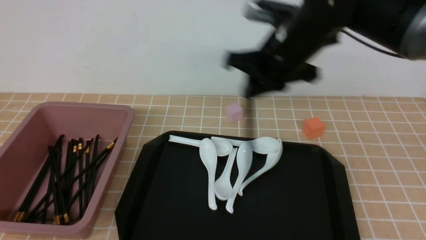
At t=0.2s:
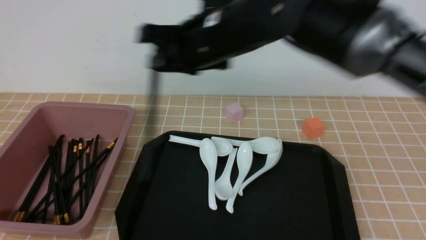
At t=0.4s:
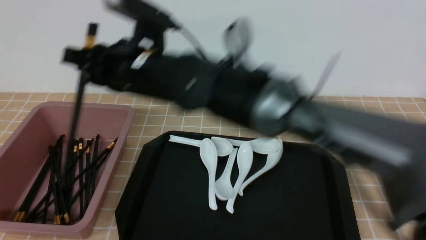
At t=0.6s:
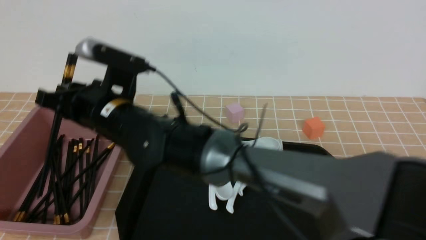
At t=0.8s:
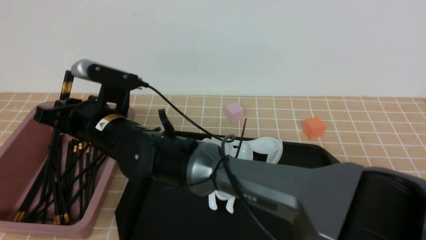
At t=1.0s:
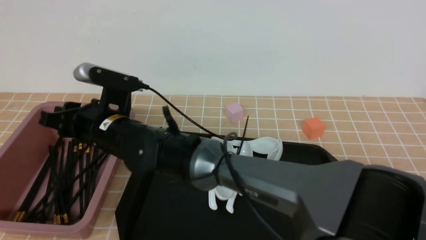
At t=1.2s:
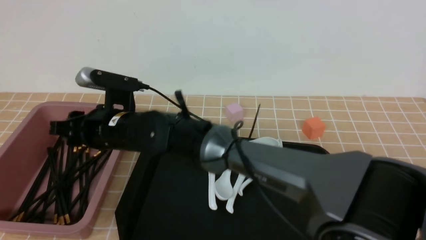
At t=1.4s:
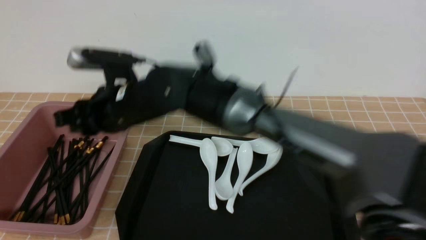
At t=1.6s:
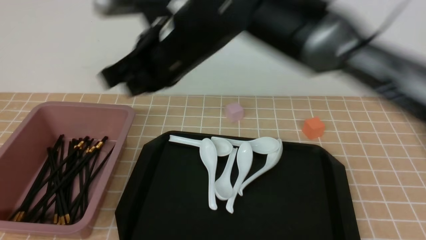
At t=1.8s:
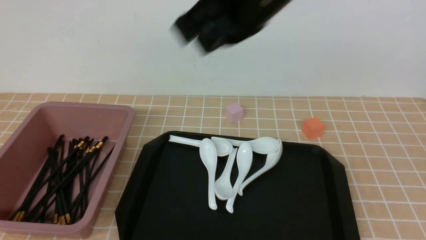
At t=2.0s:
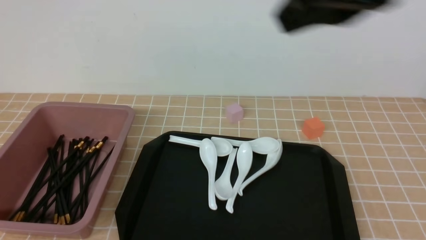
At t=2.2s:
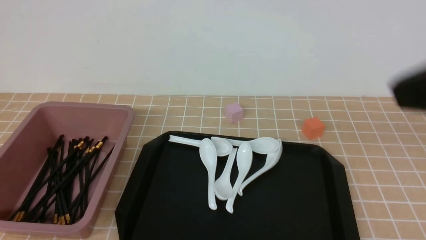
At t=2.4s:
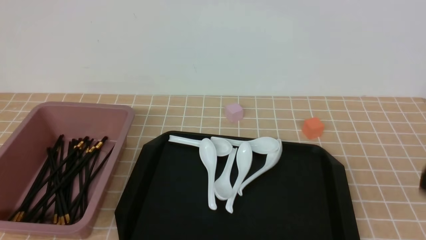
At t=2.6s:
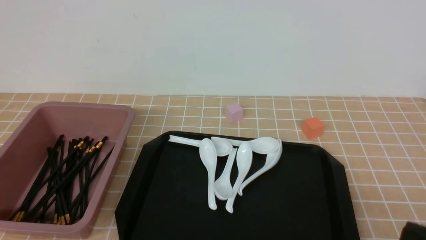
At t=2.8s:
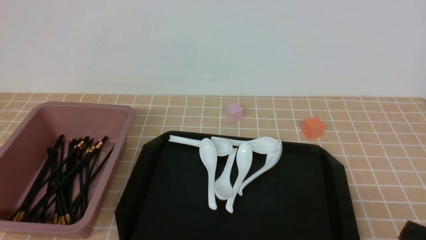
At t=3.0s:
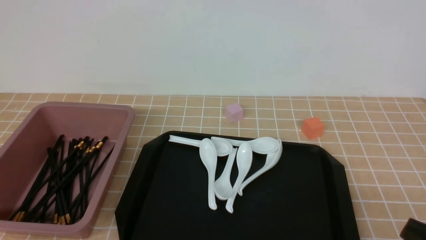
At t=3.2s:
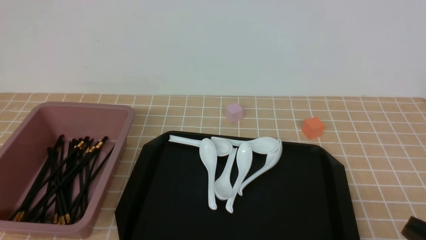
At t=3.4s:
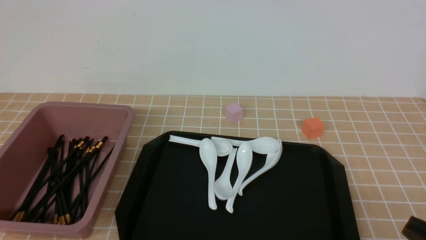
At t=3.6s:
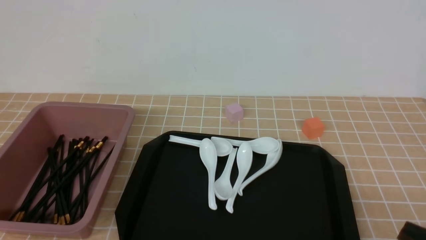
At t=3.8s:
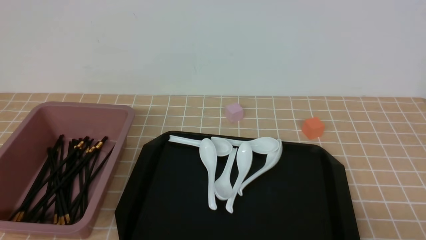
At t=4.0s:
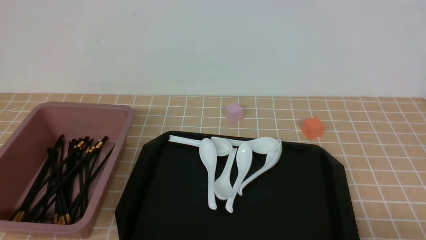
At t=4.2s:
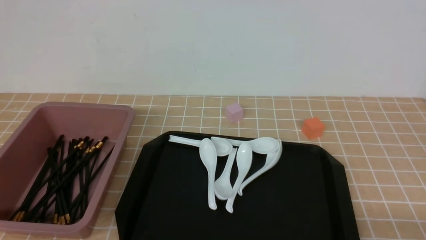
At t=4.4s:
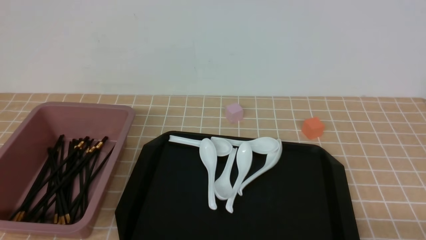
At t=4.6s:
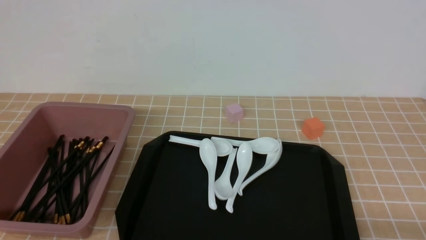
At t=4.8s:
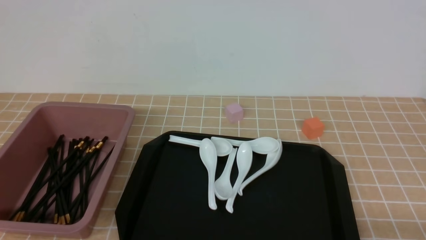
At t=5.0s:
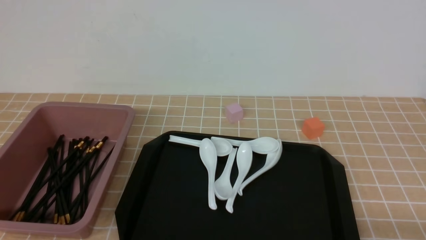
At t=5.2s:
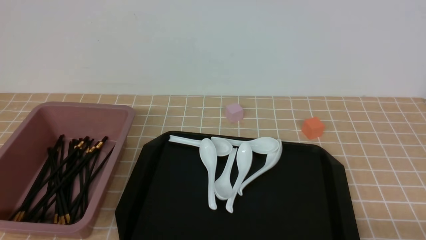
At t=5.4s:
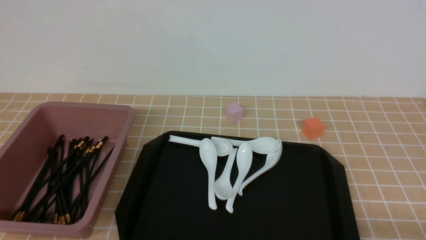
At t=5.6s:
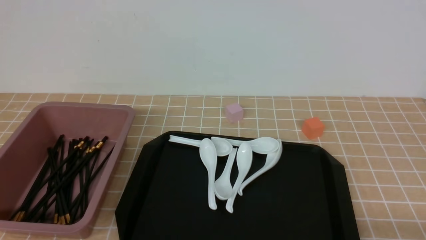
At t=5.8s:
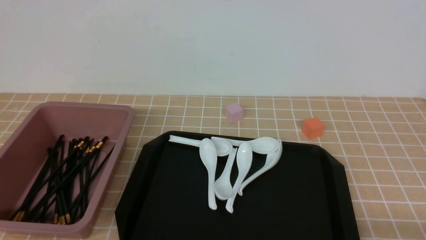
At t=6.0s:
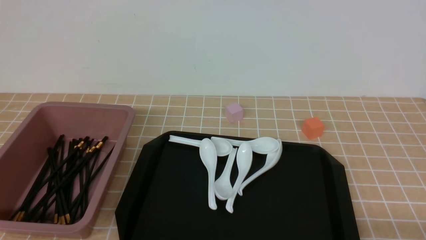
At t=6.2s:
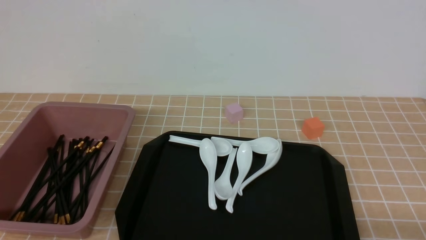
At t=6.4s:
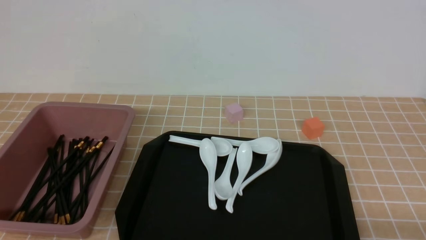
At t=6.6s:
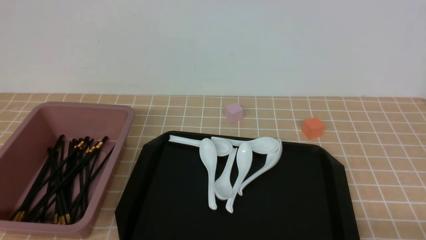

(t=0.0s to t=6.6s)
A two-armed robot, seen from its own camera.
Step, t=0.0s - t=1.4s: use the right arm to put the chopsticks into the lunch box.
t=0.0s - t=1.6s: The right gripper moves to the left, upward and backward, some 10 cm, and opens, then closes again.
t=1.6s - t=3.2s: The right gripper goes roughly 40 cm to the right, backward and downward.
t=5.0s - t=6.6s: Neither gripper changes place.
